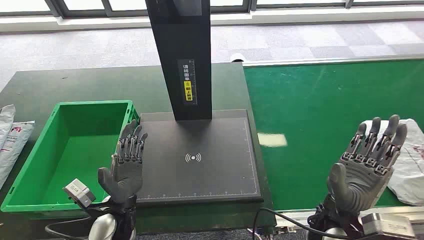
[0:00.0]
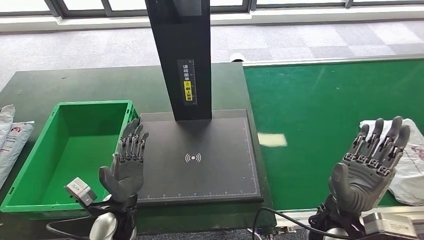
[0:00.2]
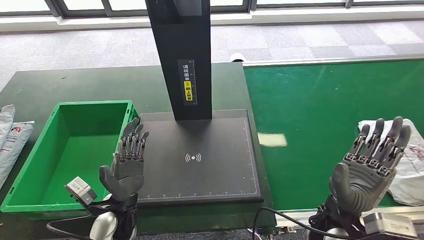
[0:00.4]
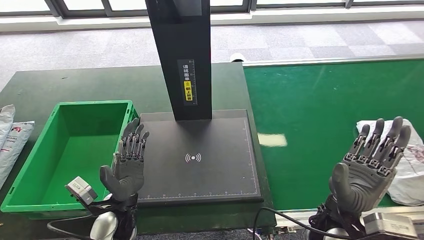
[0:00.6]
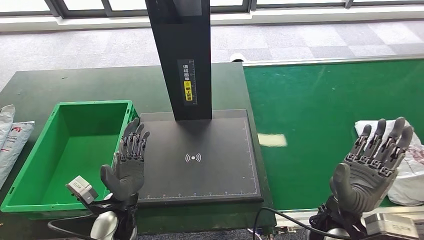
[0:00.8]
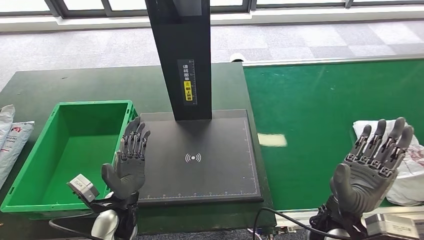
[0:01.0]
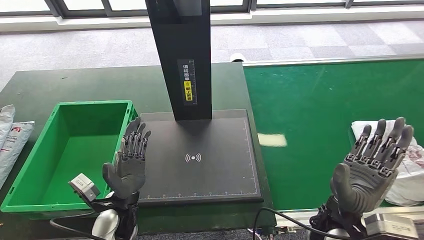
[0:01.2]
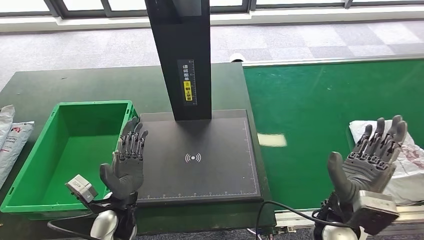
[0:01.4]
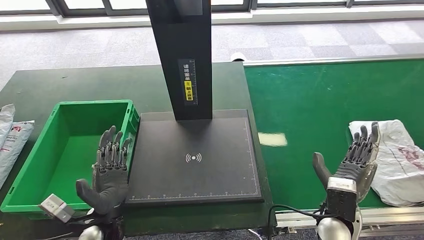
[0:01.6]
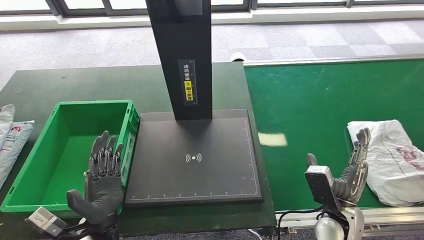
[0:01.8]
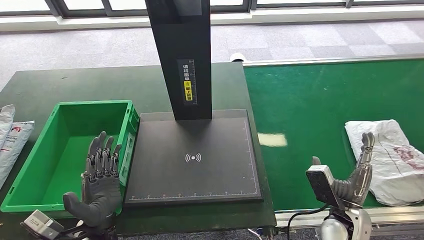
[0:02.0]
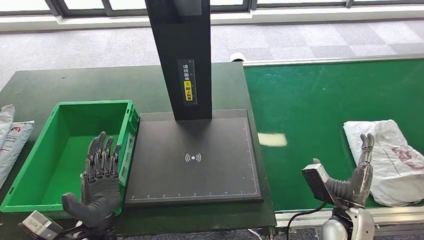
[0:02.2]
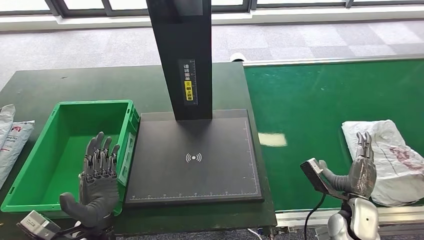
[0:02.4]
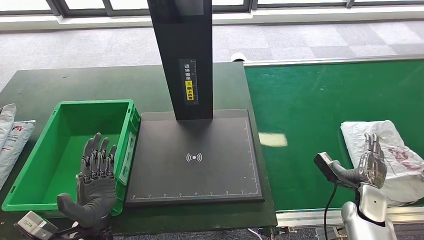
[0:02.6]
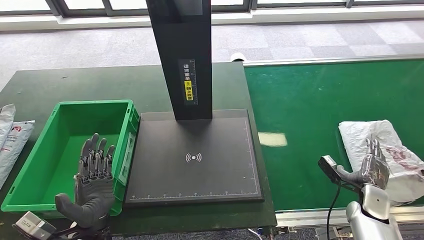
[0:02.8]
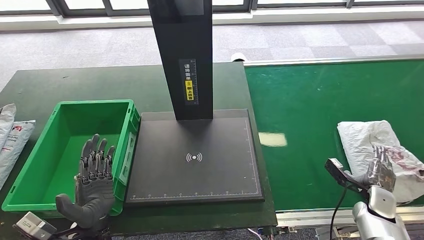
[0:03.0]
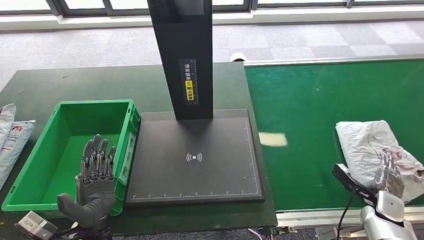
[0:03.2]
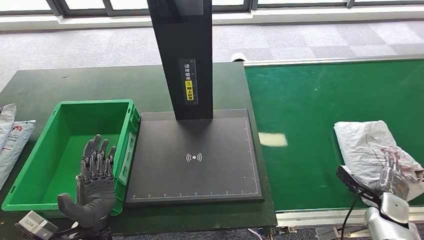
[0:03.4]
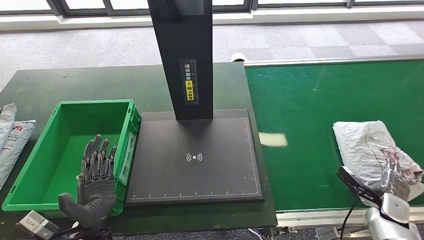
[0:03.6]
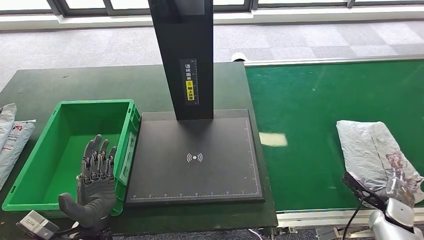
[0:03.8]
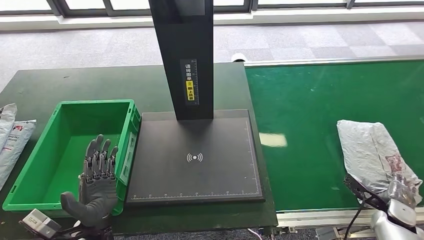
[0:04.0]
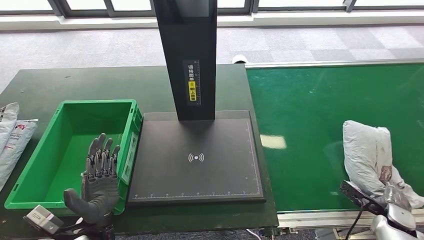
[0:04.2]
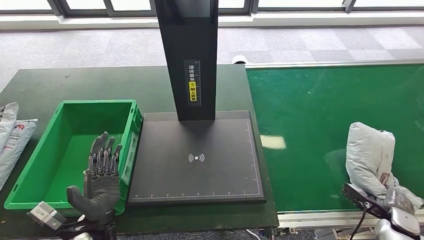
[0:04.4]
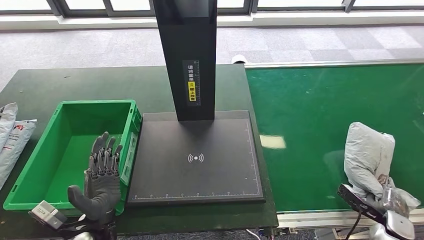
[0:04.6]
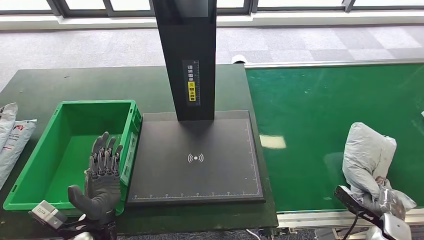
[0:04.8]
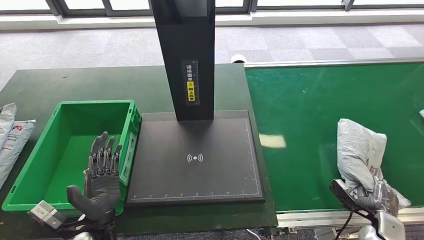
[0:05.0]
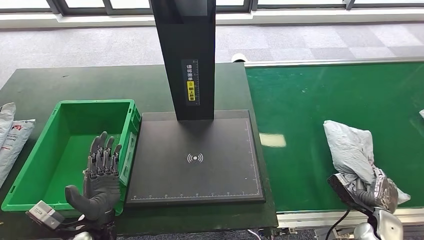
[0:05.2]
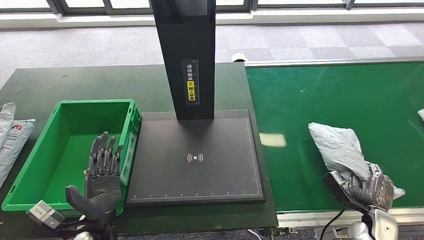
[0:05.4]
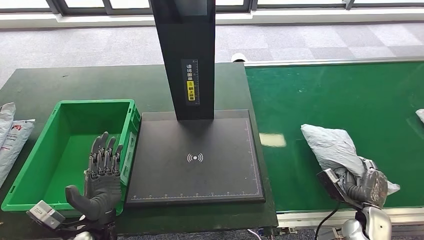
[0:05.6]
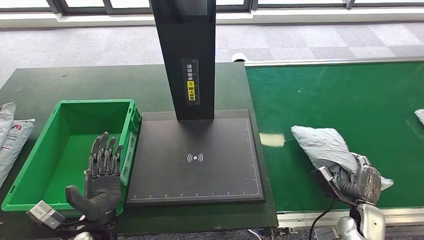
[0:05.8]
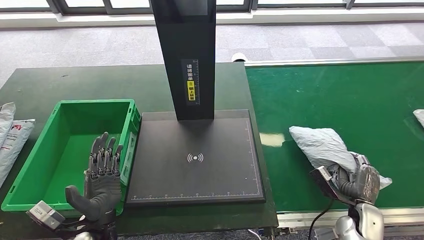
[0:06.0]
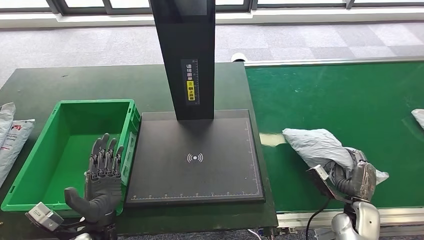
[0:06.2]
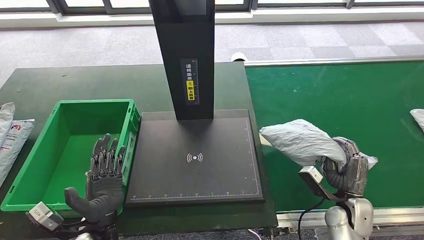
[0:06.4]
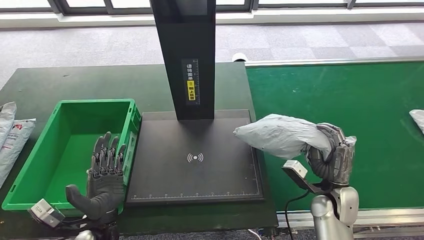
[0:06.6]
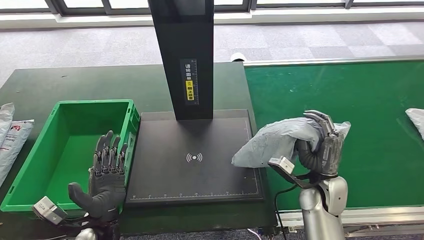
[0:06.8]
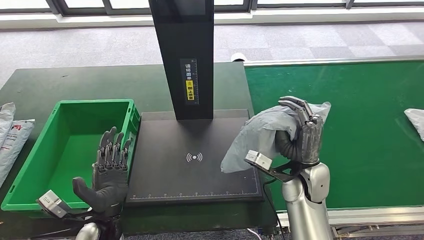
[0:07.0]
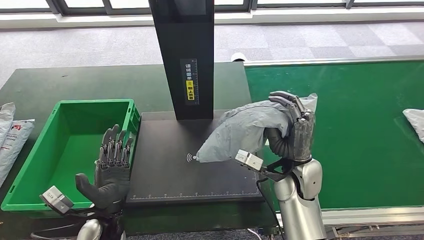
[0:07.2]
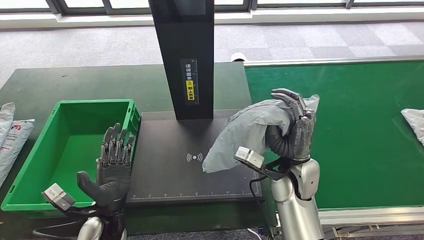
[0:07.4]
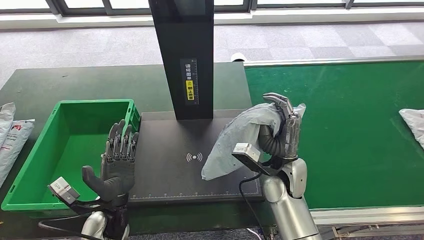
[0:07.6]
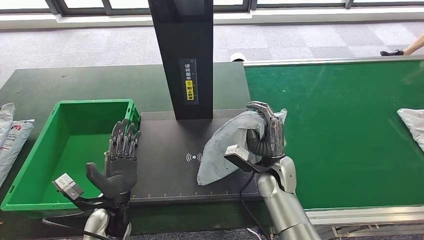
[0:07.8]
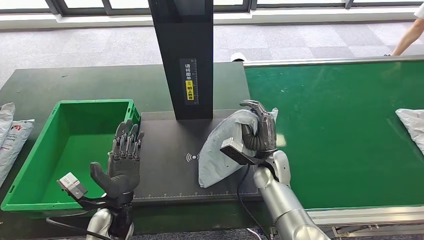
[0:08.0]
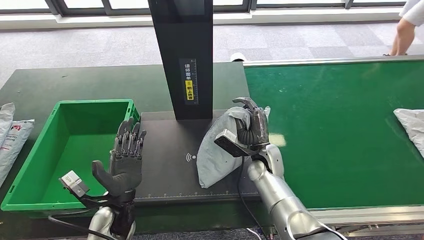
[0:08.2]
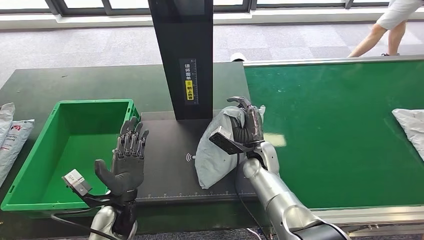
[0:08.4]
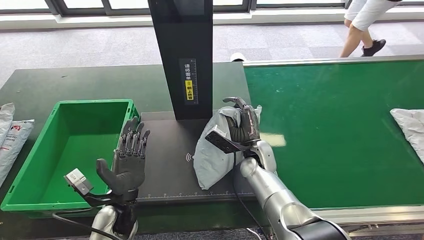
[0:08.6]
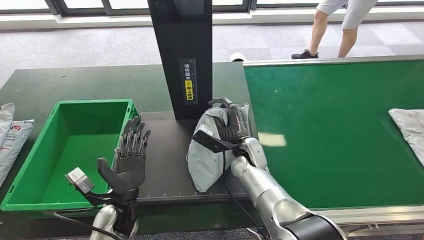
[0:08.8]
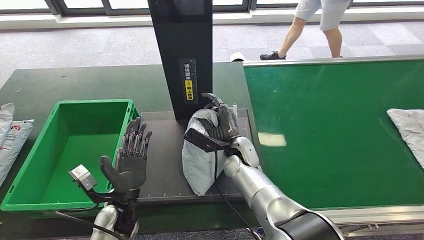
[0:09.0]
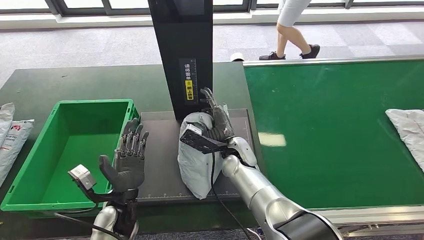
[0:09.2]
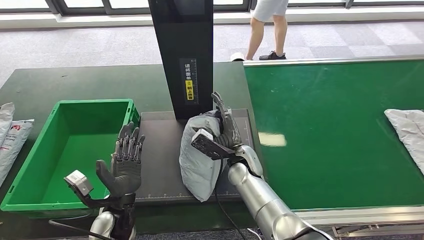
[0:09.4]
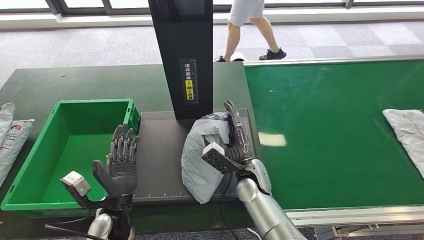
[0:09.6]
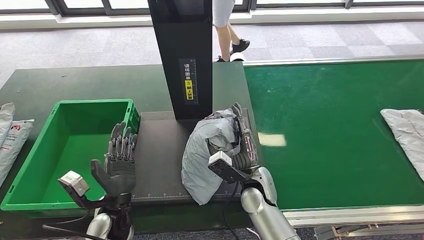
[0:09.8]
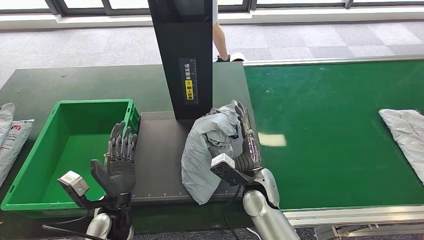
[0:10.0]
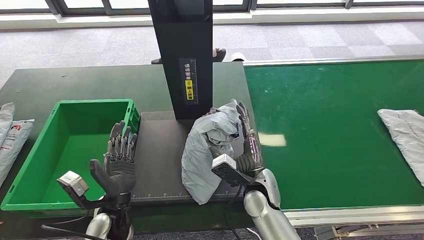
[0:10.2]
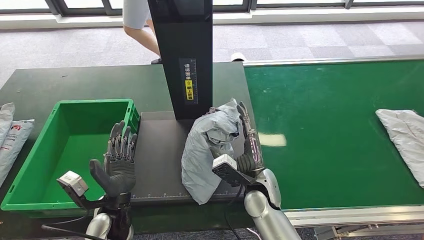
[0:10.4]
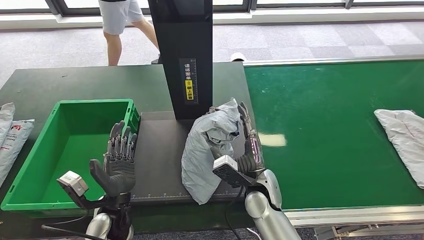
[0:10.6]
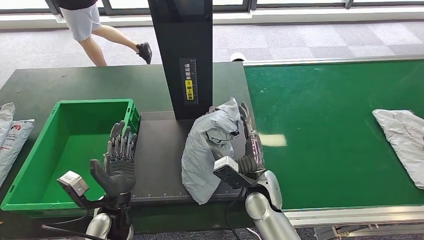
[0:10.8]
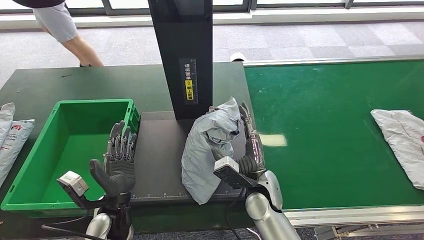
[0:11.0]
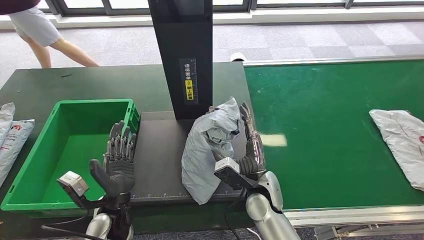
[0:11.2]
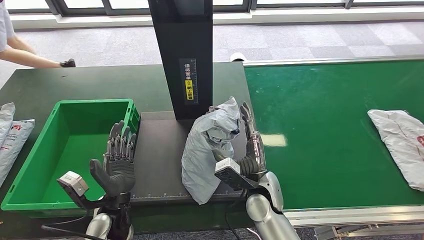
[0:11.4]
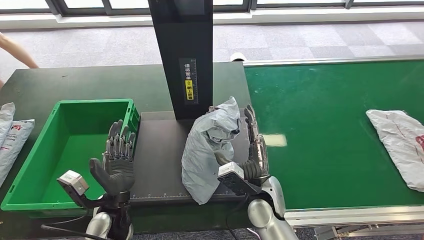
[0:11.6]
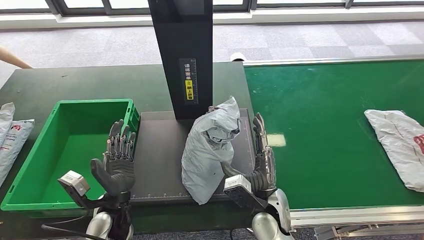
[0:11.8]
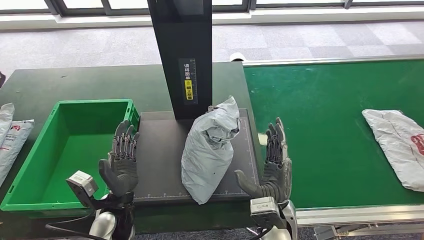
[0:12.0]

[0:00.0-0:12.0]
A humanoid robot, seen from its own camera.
Step, 0:00.0 to 0:06.6: Take the parcel off the conveyor belt.
Step, 0:06.8 to 0:11.0: Place the parcel onto the inbound machine.
0:01.6 to 0:03.0: The right hand moves to the right and downward, some 20 cm.
0:07.6 to 0:09.0: The right hand shifts about 15 cm to the left and forward.
0:09.0 to 0:10.4: The right hand is displaced backward and to the right by approximately 10 cm.
0:10.4 to 0:12.0: The right hand heads backward, covering about 10 cm.

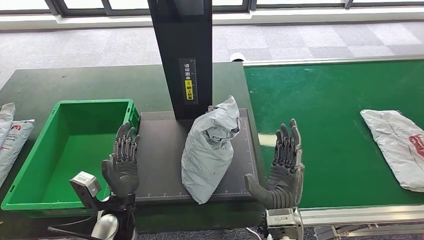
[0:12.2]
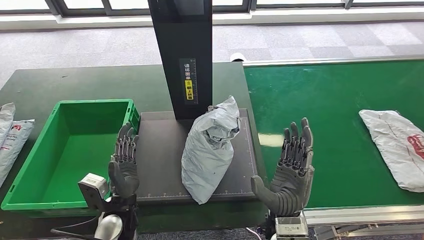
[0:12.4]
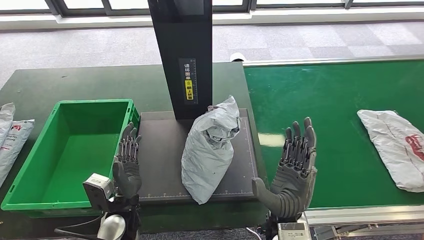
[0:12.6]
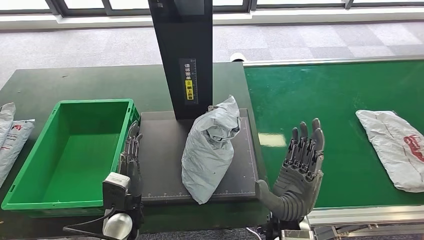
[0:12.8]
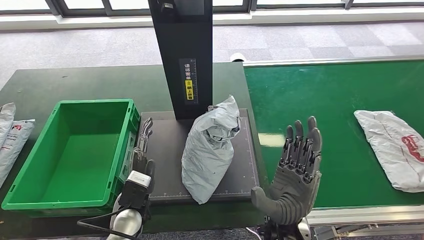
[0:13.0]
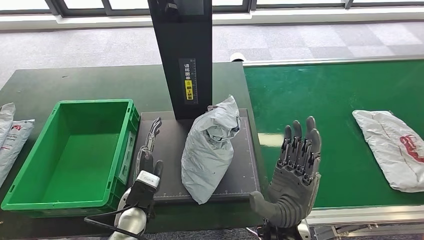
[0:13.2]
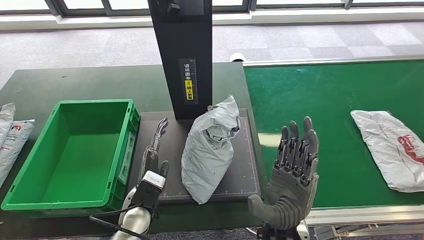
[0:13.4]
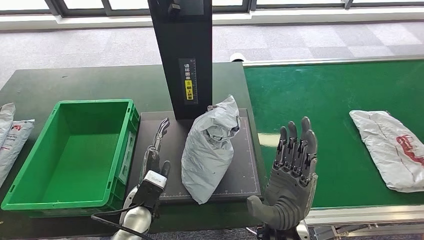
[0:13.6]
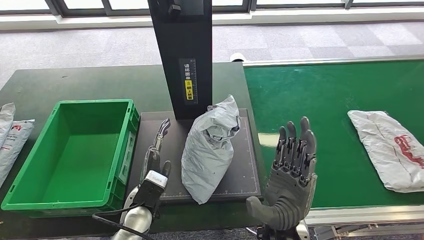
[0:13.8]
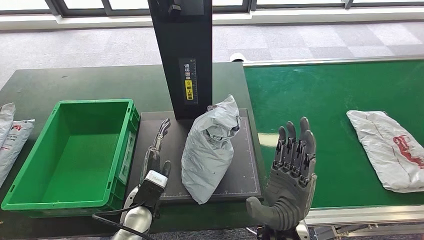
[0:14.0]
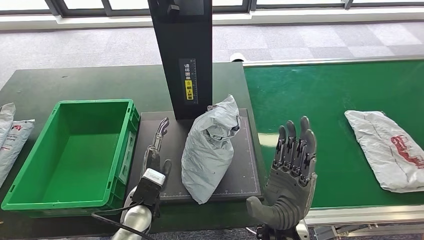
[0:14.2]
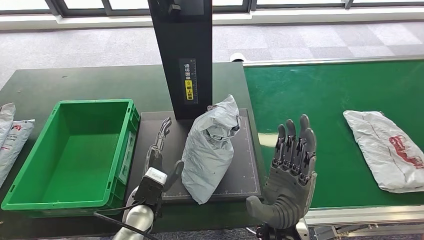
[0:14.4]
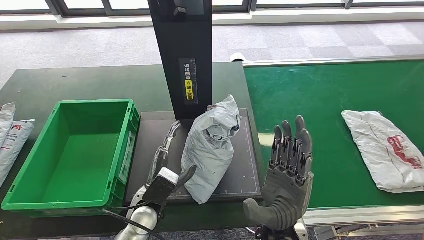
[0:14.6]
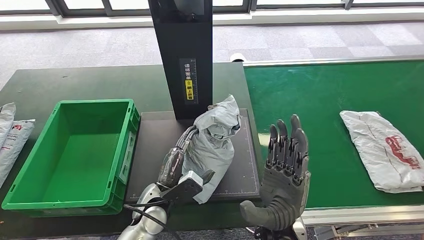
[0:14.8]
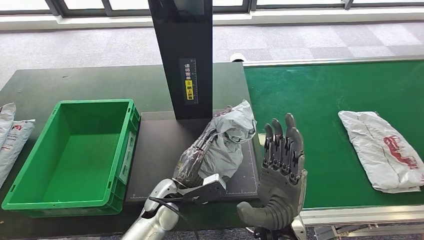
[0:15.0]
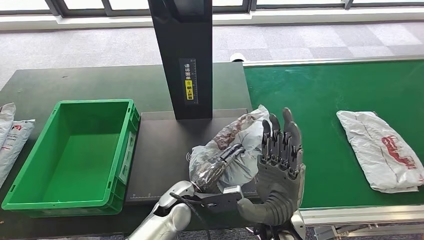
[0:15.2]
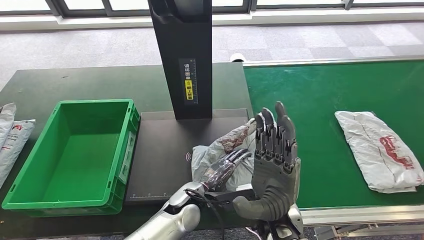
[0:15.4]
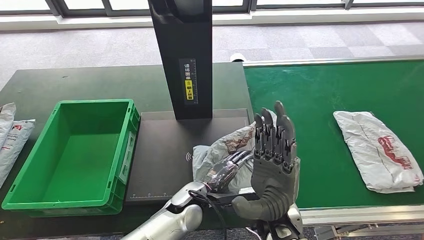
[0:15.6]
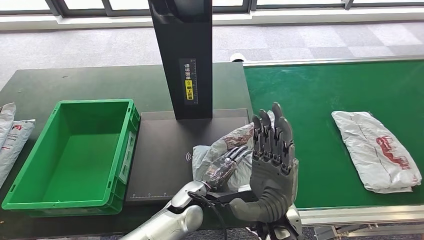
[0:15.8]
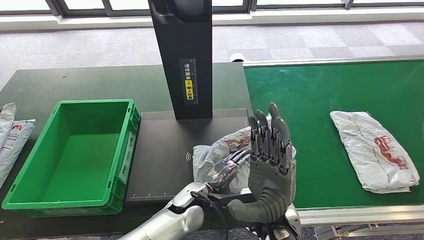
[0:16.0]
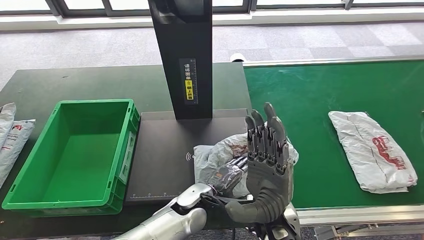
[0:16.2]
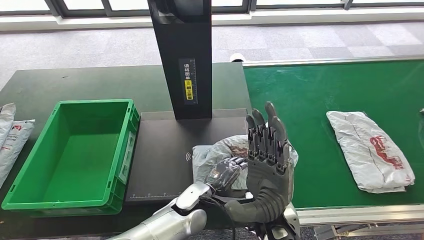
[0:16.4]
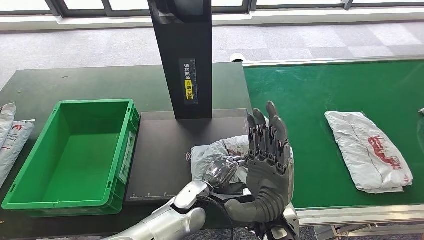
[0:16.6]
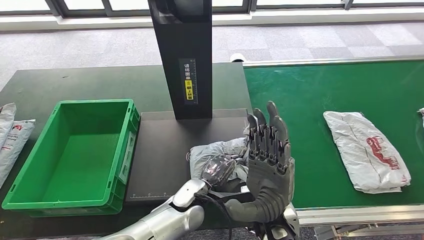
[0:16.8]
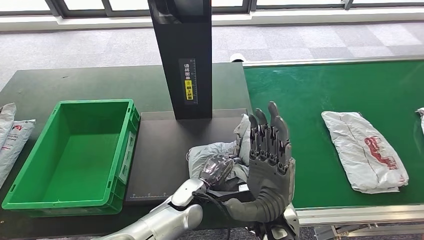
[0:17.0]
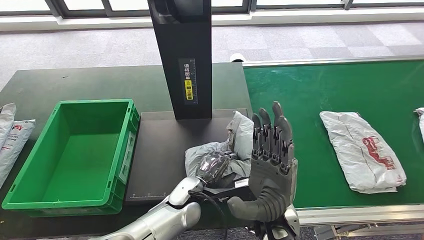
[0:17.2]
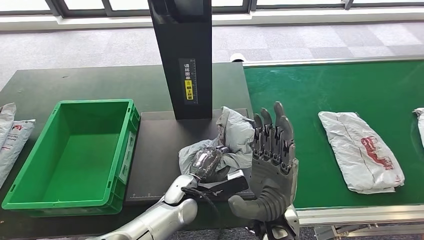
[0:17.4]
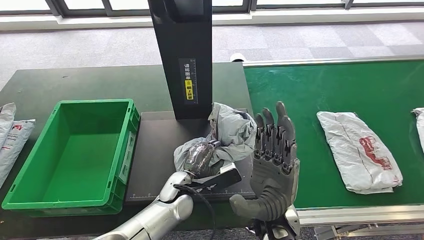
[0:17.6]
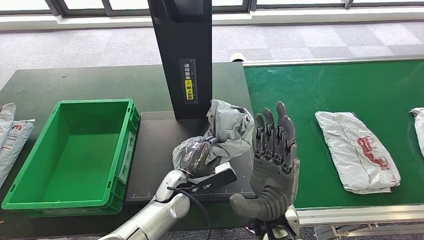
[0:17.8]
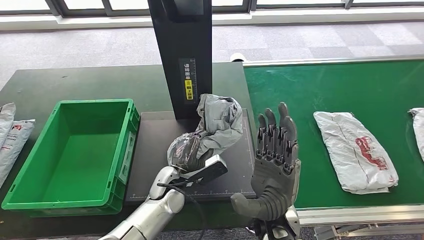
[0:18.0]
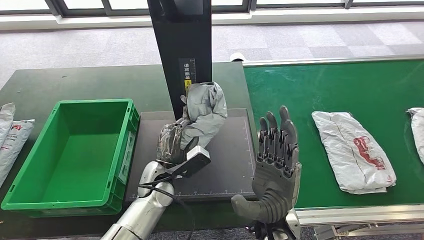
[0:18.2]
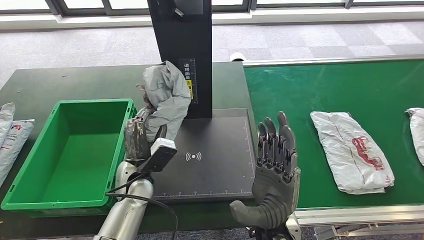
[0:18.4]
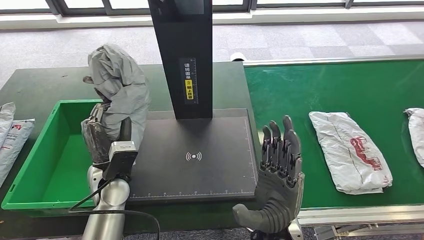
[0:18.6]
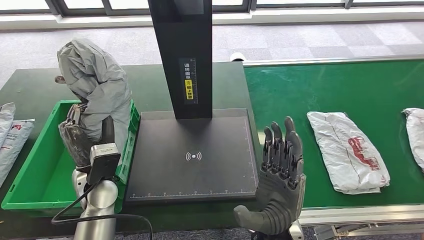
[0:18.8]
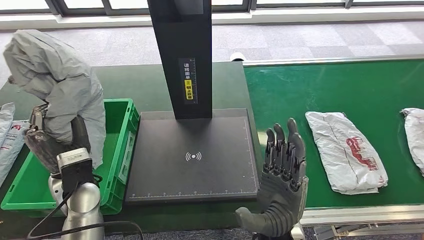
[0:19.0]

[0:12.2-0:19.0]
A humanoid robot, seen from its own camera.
0:12.2 to 0:13.6: The left hand changes place by approximately 5 cm, while the right hand travels upward by approximately 5 cm.
0:13.6 to 0:15.0: The left hand heads to the right, covering about 5 cm.
0:15.0 to 0:16.2: The left hand travels to the right by roughly 5 cm.
0:16.2 to 0:17.6: The left hand moves approximately 5 cm.
